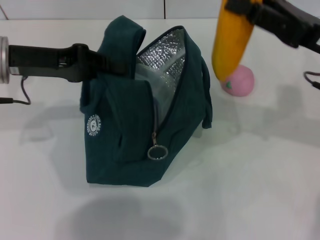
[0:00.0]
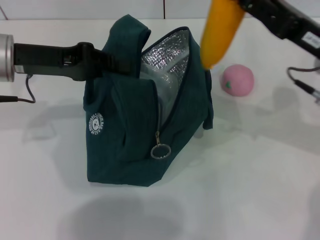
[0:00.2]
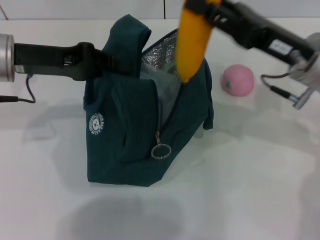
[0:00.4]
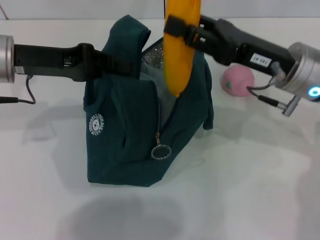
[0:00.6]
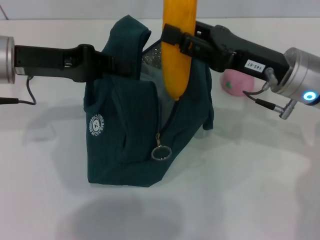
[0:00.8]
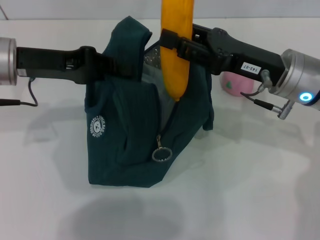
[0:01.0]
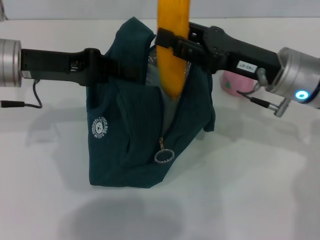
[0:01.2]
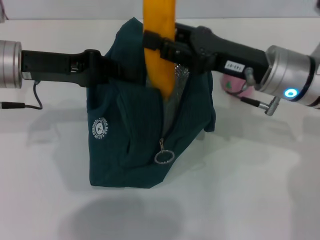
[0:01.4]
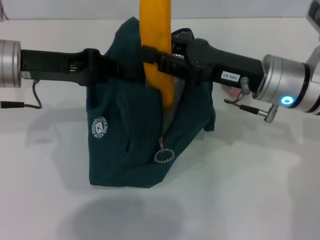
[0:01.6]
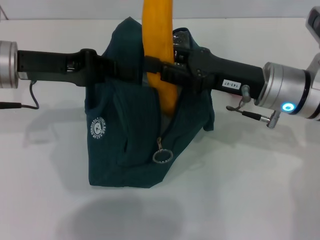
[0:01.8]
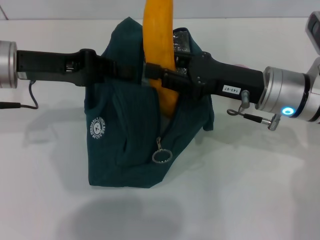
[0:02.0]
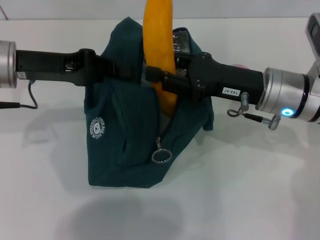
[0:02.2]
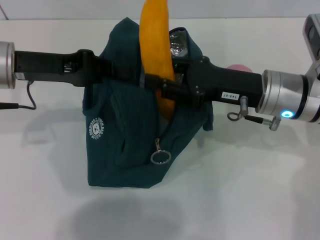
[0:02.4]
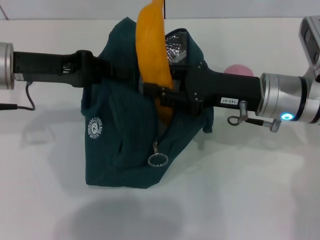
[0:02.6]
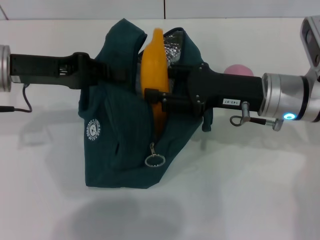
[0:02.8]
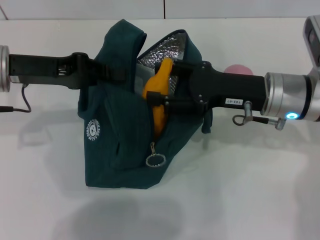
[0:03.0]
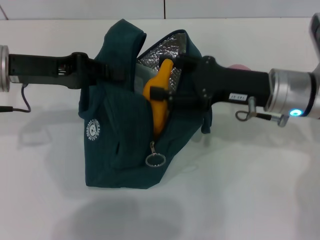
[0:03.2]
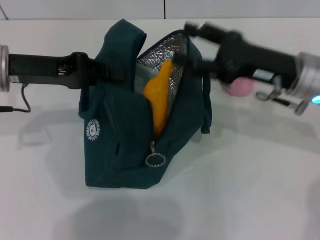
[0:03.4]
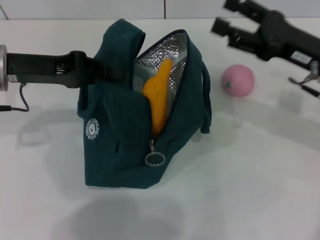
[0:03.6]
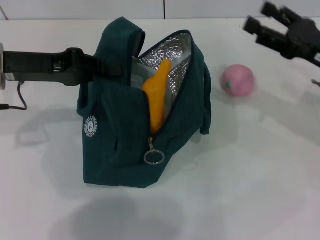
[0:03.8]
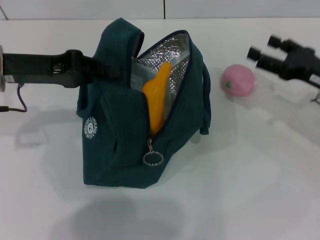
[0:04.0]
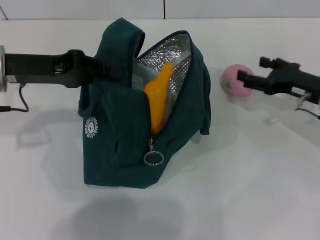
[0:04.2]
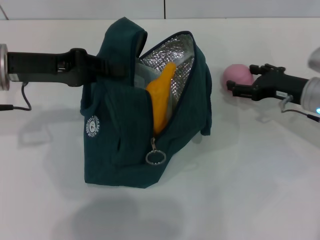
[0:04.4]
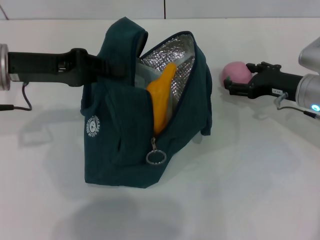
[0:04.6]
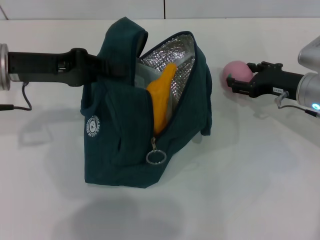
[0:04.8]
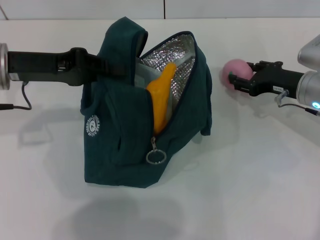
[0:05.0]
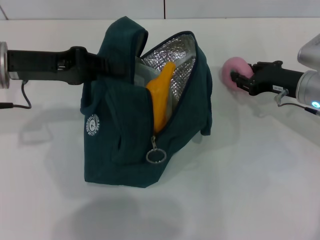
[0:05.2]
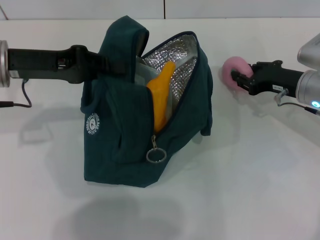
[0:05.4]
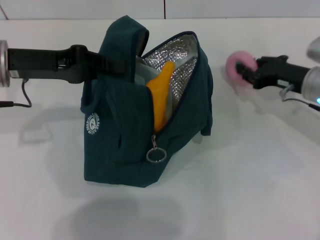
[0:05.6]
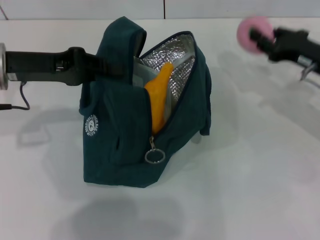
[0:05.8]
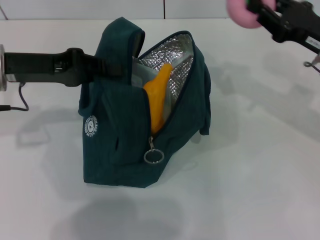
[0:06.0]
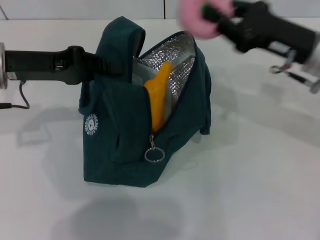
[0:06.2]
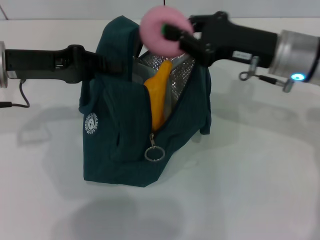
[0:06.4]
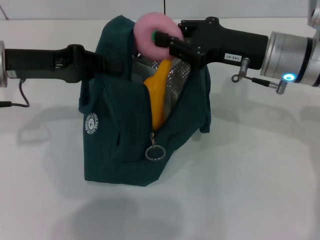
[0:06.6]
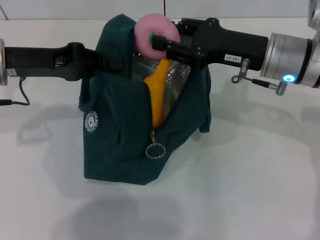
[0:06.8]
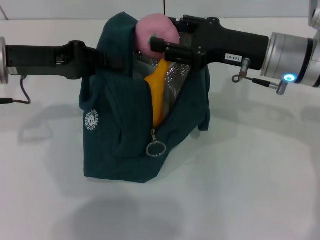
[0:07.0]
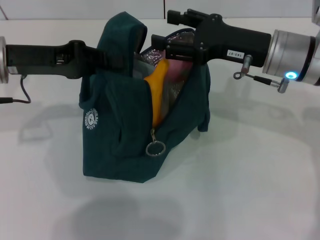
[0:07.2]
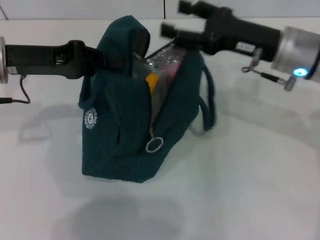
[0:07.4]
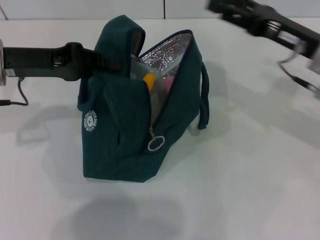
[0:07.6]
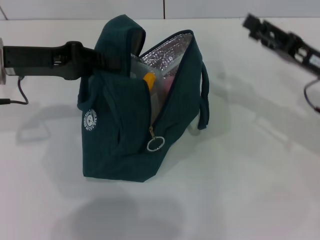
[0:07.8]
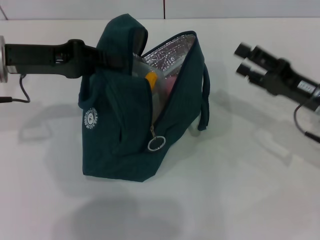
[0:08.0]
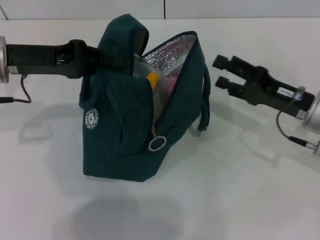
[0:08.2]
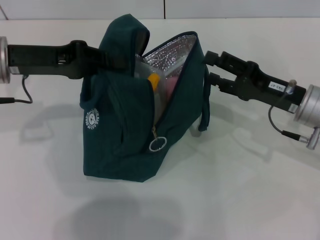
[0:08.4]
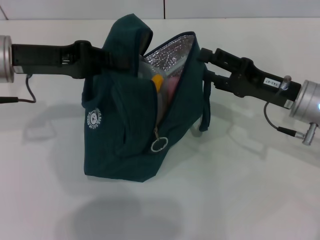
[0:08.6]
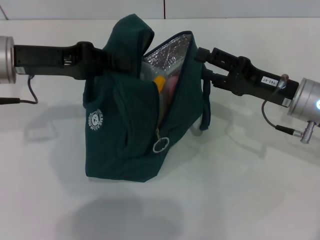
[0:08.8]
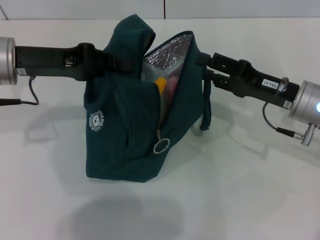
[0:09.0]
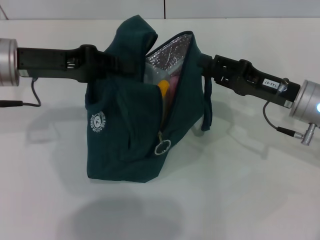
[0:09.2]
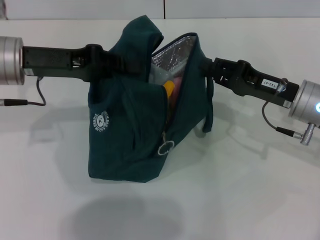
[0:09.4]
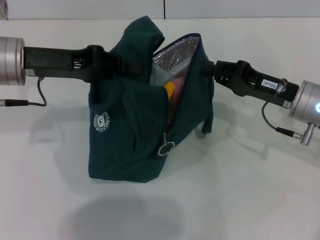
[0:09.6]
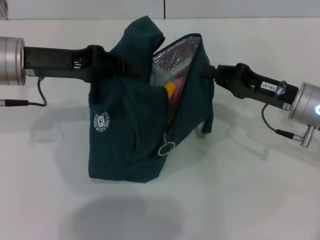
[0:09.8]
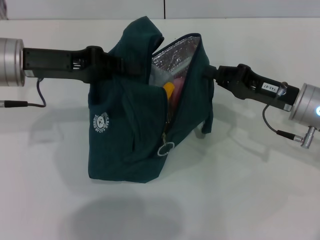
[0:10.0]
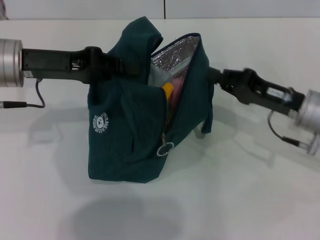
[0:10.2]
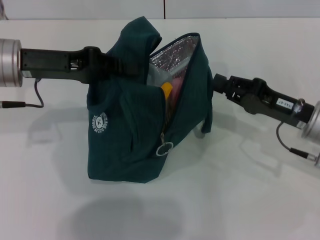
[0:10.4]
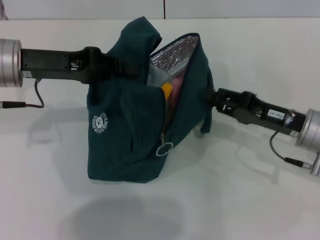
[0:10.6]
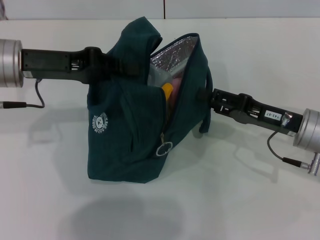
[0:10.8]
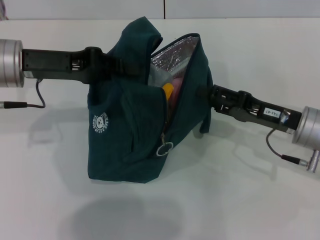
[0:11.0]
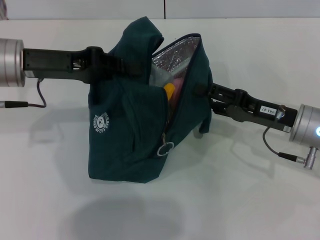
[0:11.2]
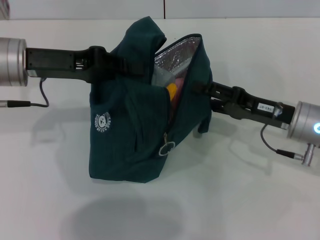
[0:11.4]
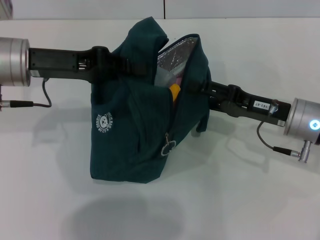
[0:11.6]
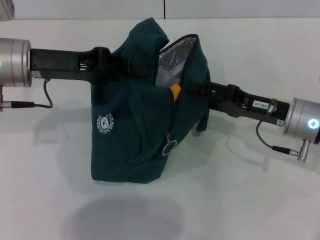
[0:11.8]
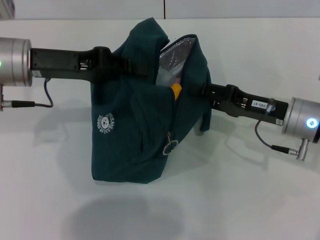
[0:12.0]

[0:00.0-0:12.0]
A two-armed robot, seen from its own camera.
Step, 0:00.0 to 0:03.2: Put the banana into the lunch bag with your right hand.
Step, 0:03.4 to 0:04.8: Grab the peach with your right hand.
0:00.0 to 0:01.6: The right gripper shifts approximately 10 cm to the left.
0:01.6 to 0:03.0: The grippers stay close to where they were, moving slightly.
0:03.0 to 0:04.4: The right gripper shifts about 10 cm to the right and downward.
0:04.4 to 0:06.0: The right gripper travels upward by approximately 10 cm, and closes its fingers.
0:06.0 to 0:07.6: The right gripper travels to the left and back again, roughly 10 cm each way, and opens its fingers.
0:07.6 to 0:09.0: The right gripper goes some 5 cm downward.
0:09.0 to 0:10.4: The right gripper closes.
0:10.4 to 0:12.0: The right gripper opens.

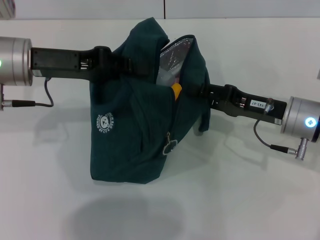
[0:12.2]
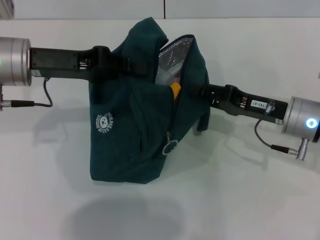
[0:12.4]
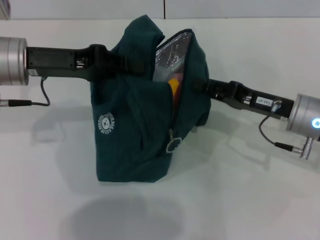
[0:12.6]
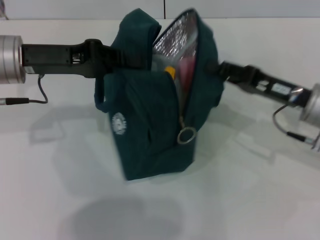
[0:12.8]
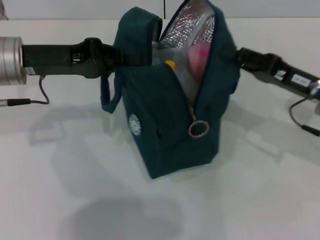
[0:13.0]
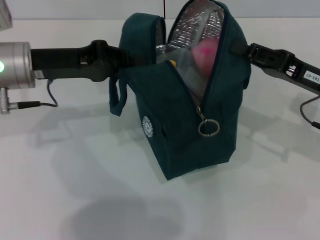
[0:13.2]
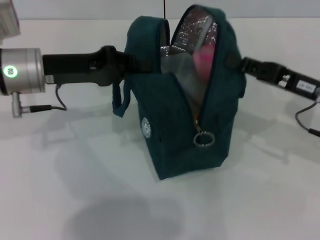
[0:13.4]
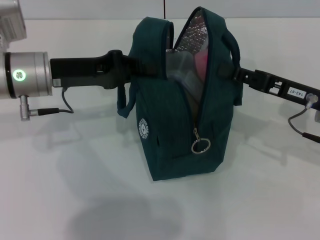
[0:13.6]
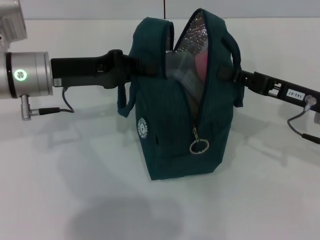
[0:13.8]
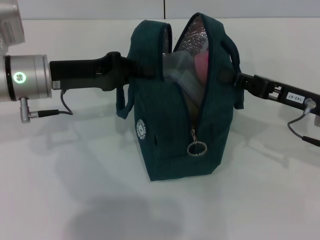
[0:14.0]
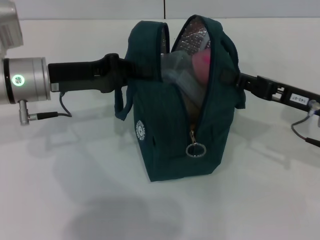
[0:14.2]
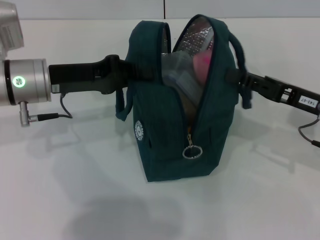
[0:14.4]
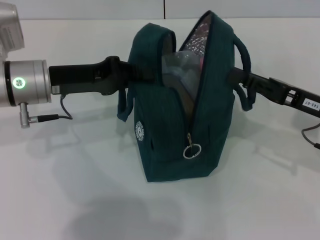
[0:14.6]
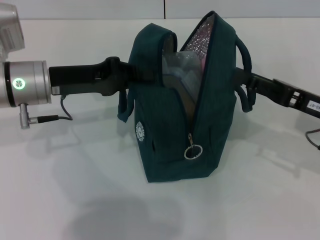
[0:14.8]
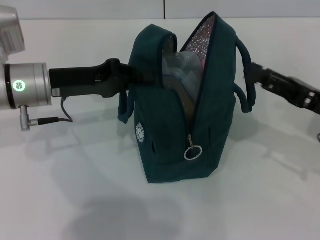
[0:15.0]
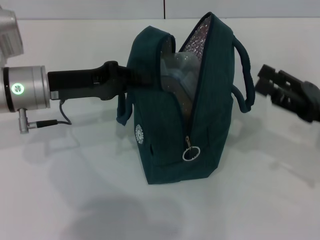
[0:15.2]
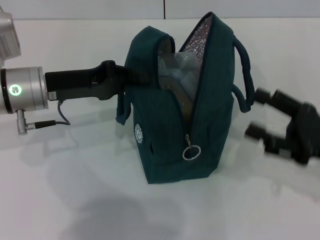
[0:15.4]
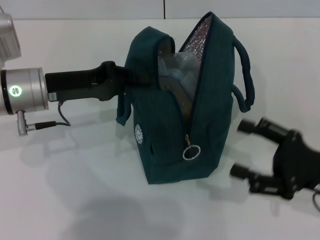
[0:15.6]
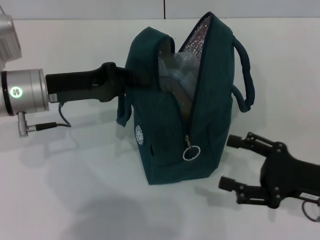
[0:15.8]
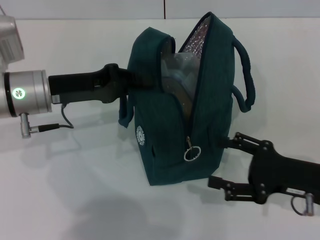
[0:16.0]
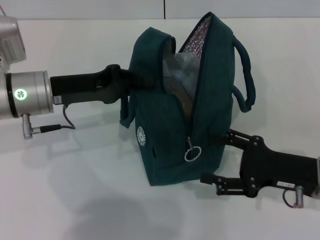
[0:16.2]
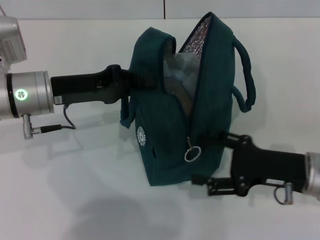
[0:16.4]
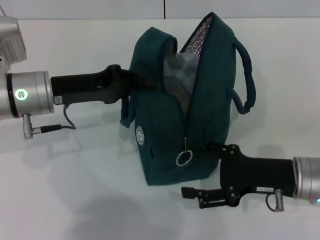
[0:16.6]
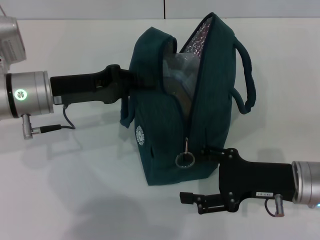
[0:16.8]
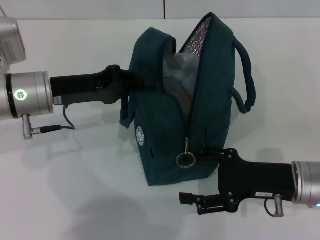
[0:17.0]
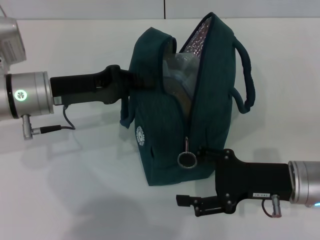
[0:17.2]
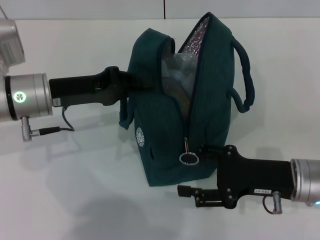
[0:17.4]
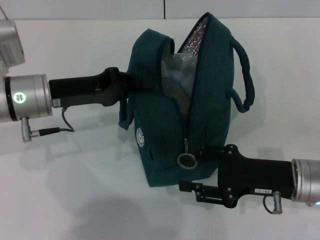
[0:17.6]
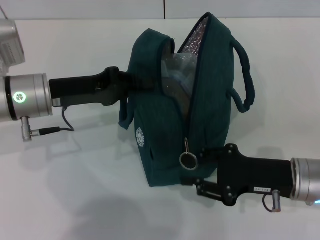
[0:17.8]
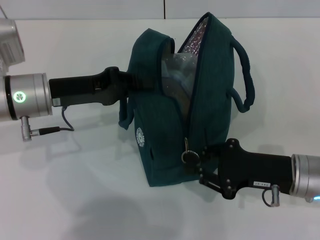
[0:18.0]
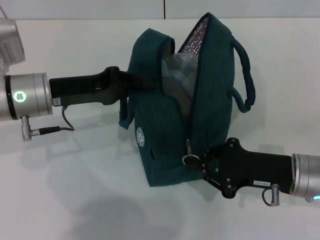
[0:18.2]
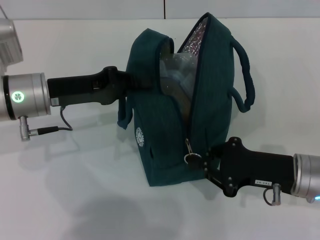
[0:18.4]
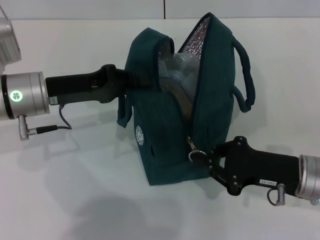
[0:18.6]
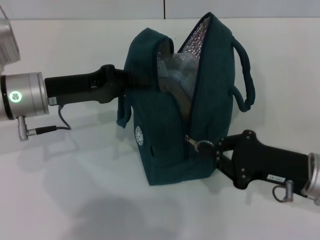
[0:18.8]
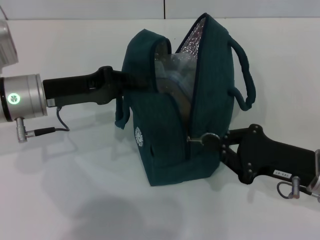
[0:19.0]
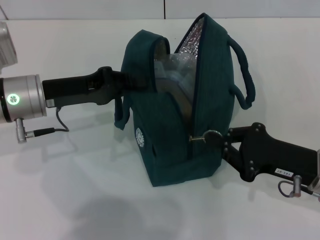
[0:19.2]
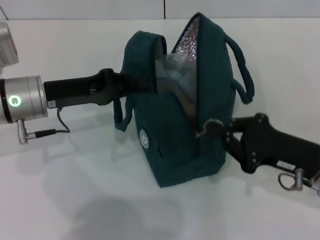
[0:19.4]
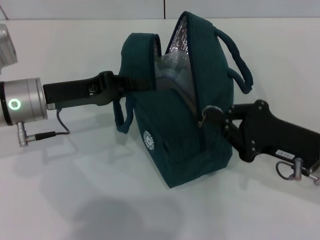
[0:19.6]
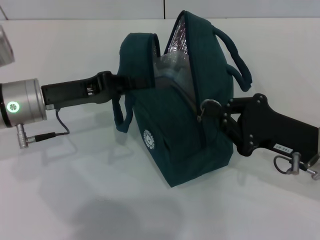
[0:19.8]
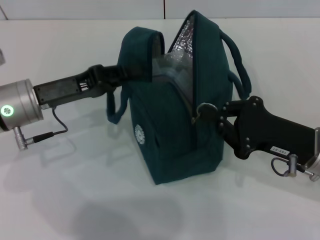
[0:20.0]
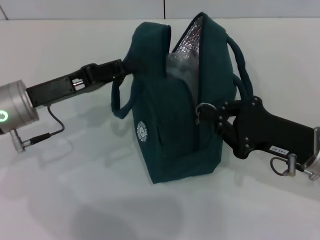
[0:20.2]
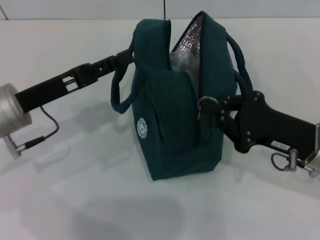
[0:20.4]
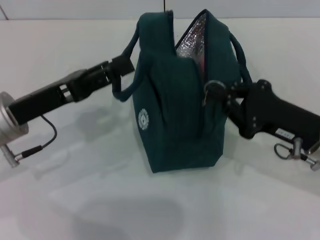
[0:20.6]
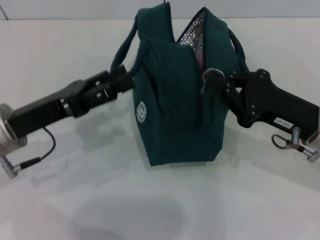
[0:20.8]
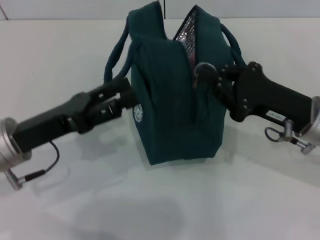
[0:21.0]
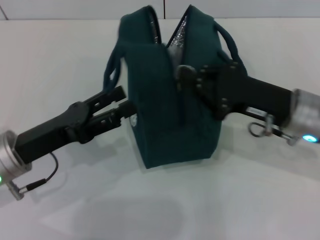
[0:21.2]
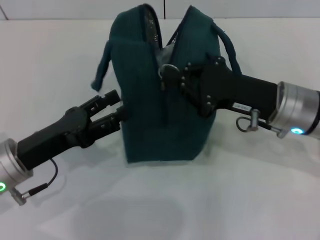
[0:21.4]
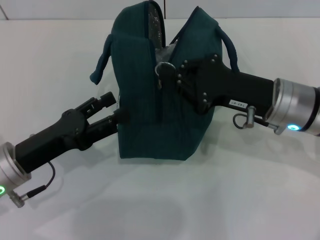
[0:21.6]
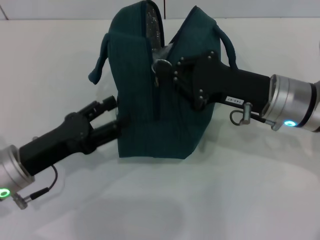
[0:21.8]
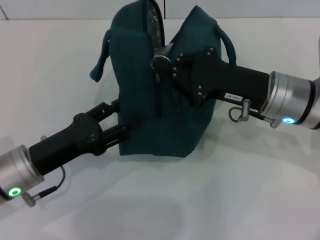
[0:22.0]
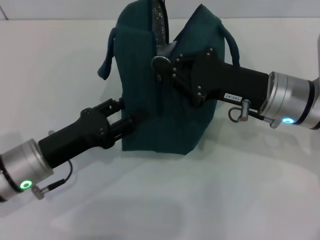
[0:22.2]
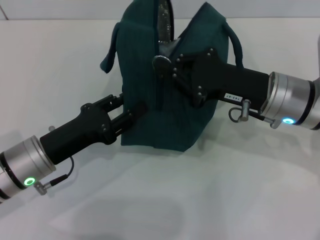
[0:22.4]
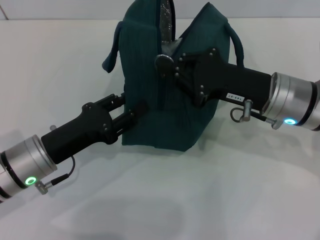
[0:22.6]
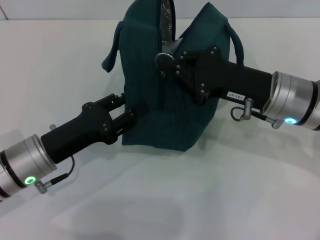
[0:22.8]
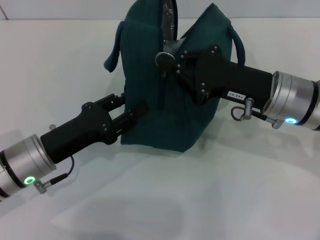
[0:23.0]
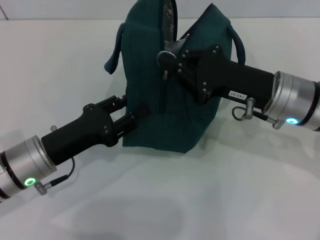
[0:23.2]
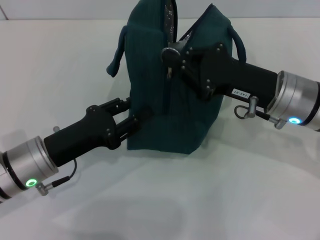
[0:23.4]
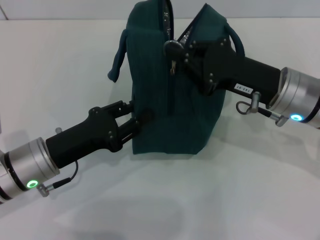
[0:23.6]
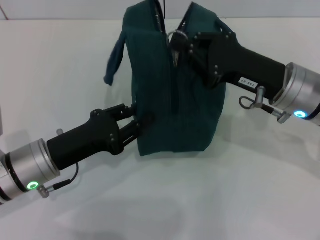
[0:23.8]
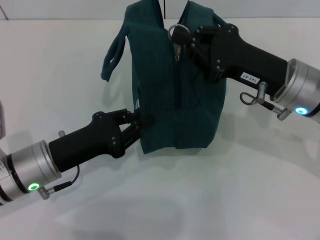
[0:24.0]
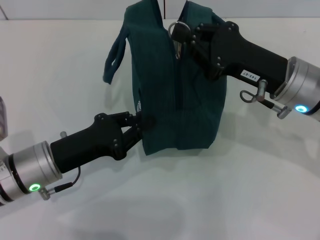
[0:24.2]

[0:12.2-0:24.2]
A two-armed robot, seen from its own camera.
Step, 0:12.2 to 0:14.8: Hold the lunch bag with your right hand.
Step, 0:15.0 to 0:20.4: Hold the lunch bag with your left hand.
0:12.2 to 0:13.8: The right gripper closes up.
0:13.8 to 0:15.2: The right gripper changes place by roughly 5 cm, and opens its fingers.
0:15.2 to 0:16.6: The right gripper heads to the left, covering some 5 cm.
0:16.6 to 0:18.2: The right gripper closes its fingers.
0:19.8 to 0:21.2: The left gripper goes some 10 cm backward, and opens up, while the right gripper ends up approximately 5 cm from where it was.
0:21.2 to 0:22.6: The left gripper closes.
